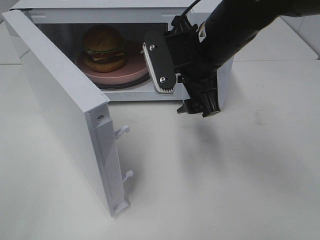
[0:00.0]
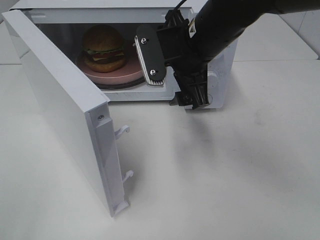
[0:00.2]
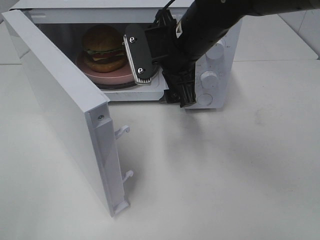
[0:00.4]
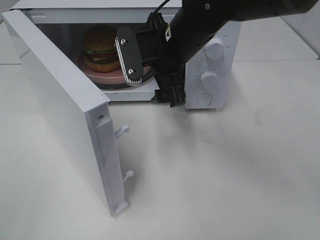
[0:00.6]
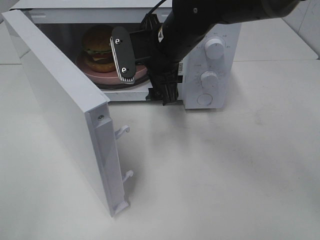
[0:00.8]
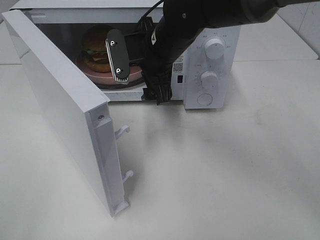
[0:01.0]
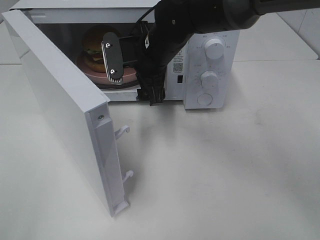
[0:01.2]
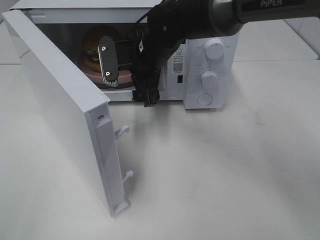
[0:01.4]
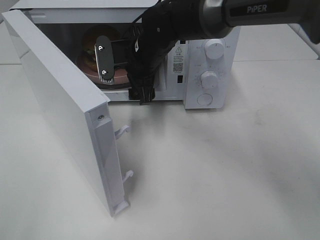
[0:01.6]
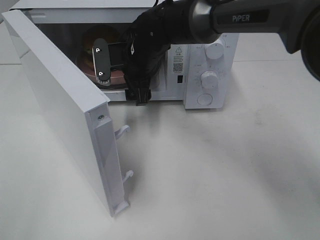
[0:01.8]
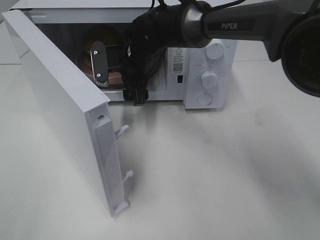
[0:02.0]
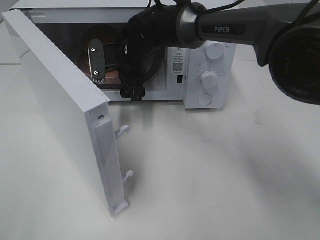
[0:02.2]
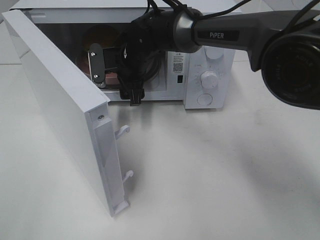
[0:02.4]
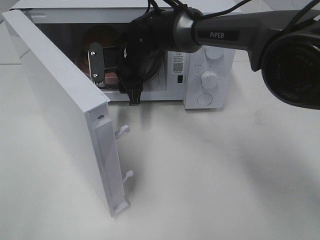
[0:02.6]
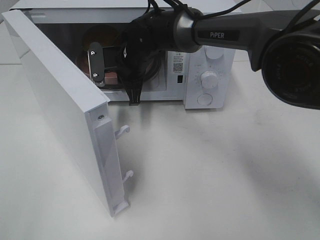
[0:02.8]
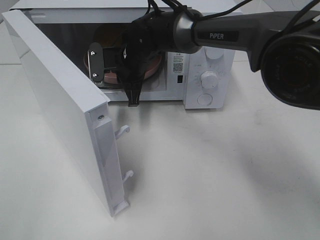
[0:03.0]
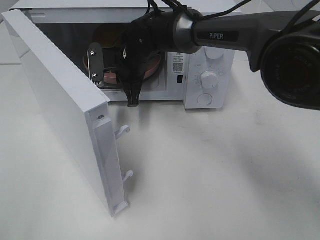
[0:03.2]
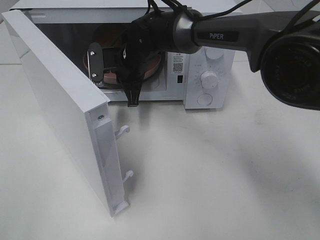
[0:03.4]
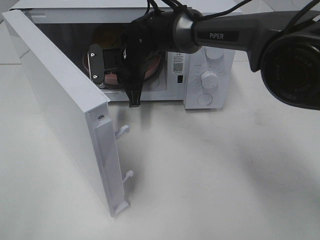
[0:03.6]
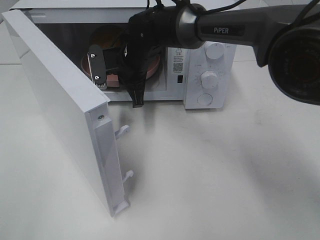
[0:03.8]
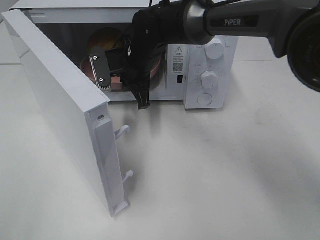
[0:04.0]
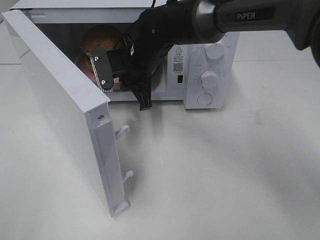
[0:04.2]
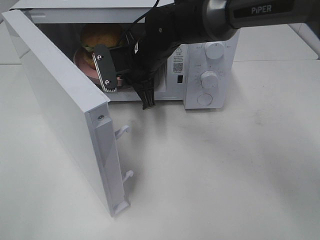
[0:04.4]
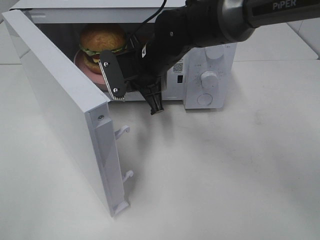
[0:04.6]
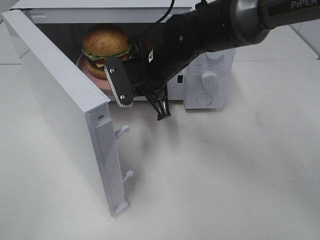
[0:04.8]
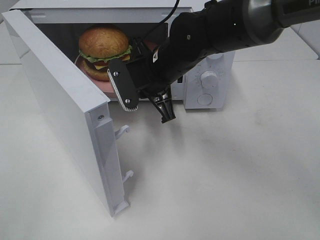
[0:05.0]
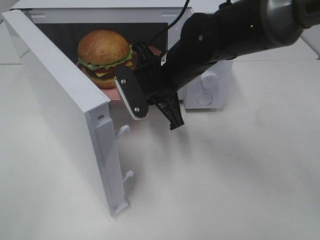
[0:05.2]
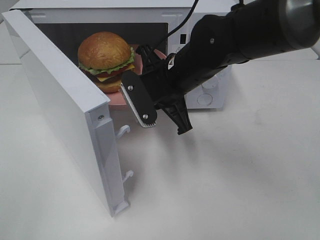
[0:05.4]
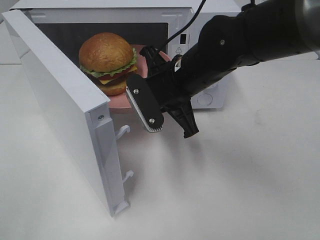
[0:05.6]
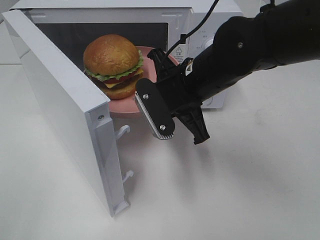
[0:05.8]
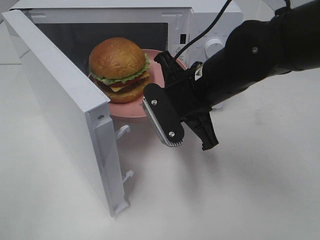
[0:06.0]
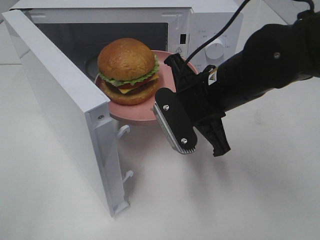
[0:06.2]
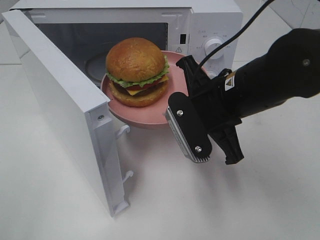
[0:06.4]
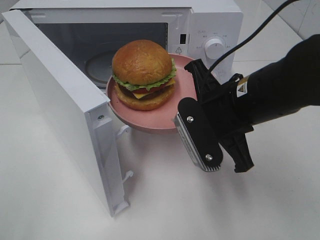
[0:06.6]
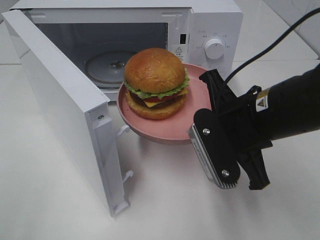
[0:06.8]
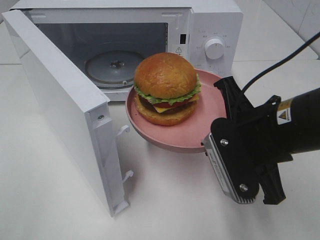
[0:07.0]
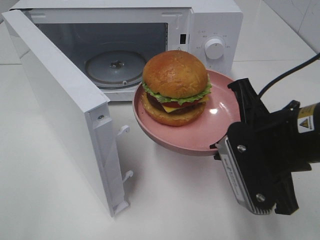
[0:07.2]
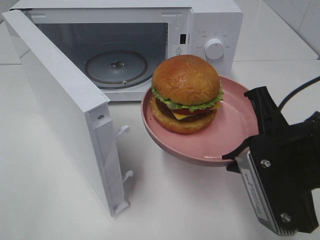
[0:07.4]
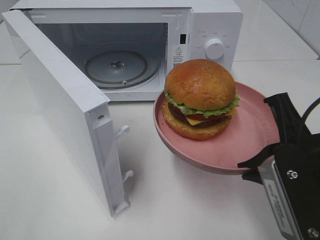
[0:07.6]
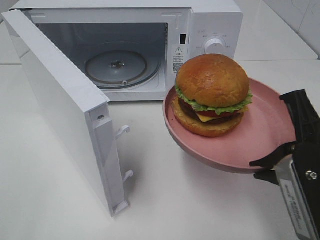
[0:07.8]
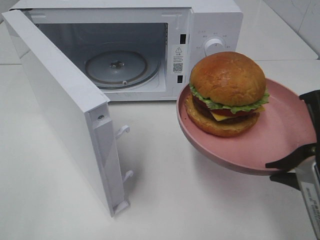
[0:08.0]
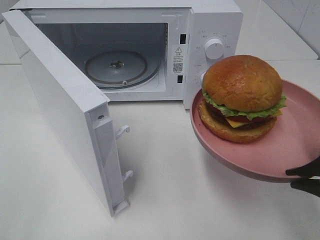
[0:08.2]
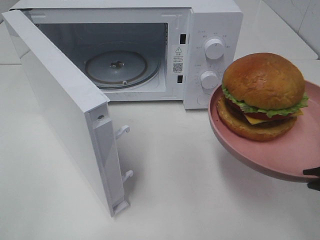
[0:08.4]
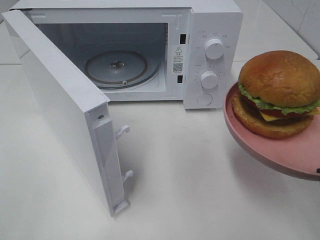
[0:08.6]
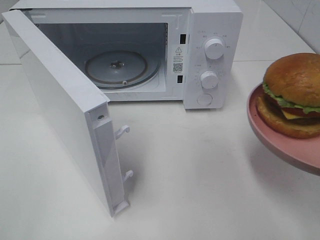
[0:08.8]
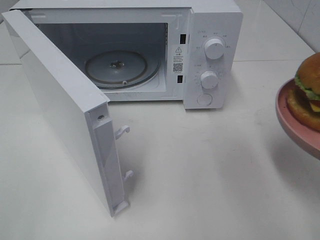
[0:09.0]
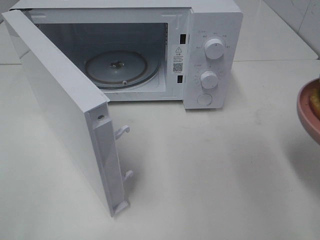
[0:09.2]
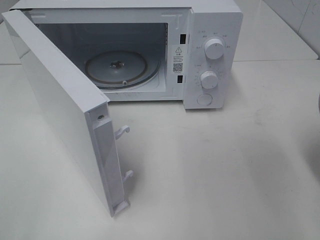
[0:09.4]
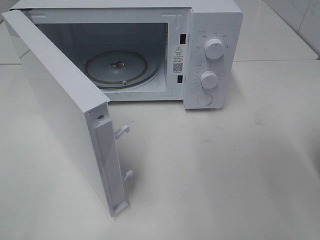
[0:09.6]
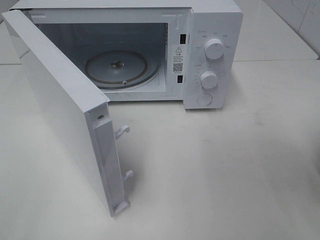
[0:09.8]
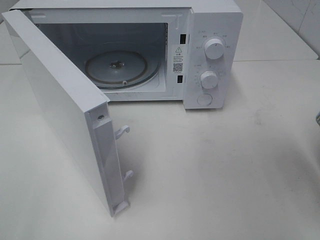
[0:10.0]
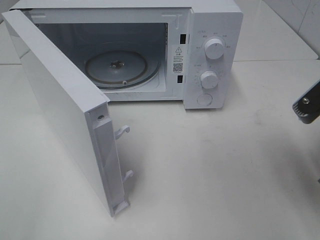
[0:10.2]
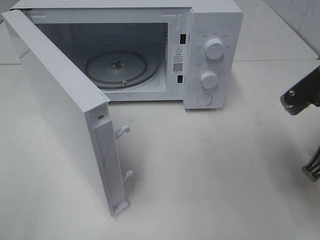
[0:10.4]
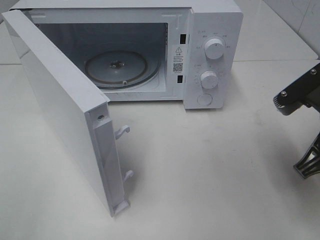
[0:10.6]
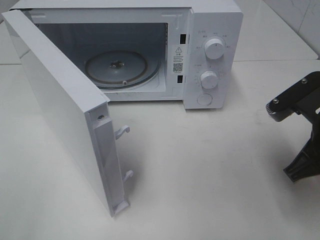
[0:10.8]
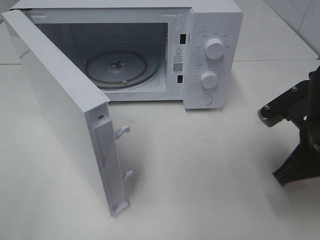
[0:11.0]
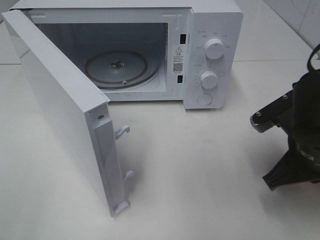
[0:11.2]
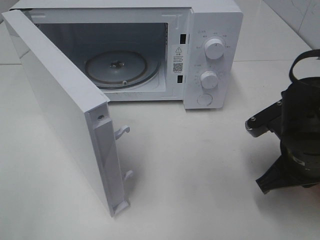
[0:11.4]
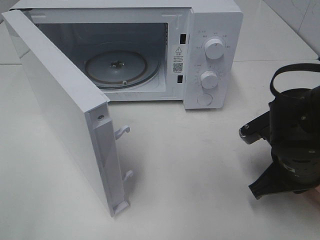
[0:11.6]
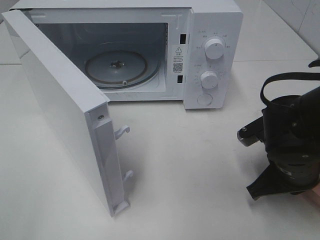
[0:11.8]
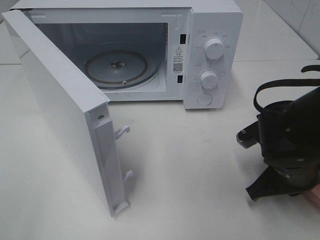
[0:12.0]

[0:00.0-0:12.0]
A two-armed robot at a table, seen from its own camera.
Task of the whole recording: Heat the burger.
Step, 0:00.0 to 0:03.4: Right hand: grab the plate with the hamburger.
0:00.0 to 0:01.6: The right gripper moves forward, to the left and downward, approximately 15 cm.
0:01.6 to 0:03.0: The right gripper shifts by approximately 5 cm, and closes its fingers.
0:03.0 to 0:04.4: The right gripper shifts by about 5 cm.
0:04.4 to 0:06.0: The right gripper travels backward and to the right by approximately 15 cm.
0:06.0 to 0:07.6: The right gripper is displaced backward and to the right by about 20 cm.
0:07.6 to 0:09.0: The right gripper goes approximately 10 cm to the right.
0:09.0 to 0:10.4: The right gripper goes approximately 10 cm forward.
0:10.4 to 0:12.0: The right gripper shifts roughly 10 cm downward.

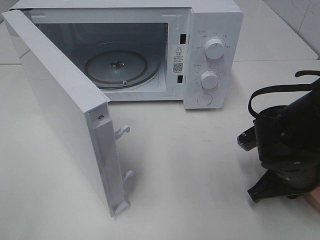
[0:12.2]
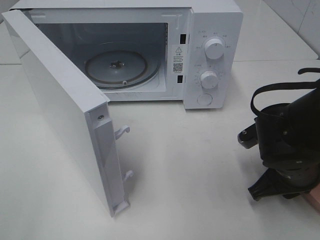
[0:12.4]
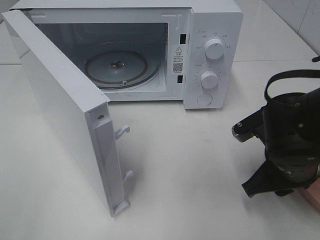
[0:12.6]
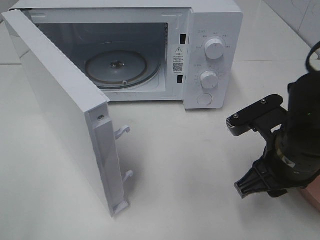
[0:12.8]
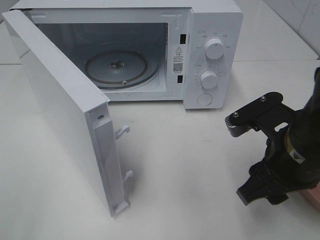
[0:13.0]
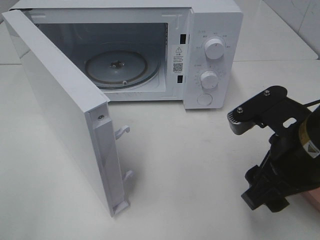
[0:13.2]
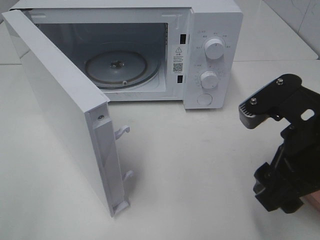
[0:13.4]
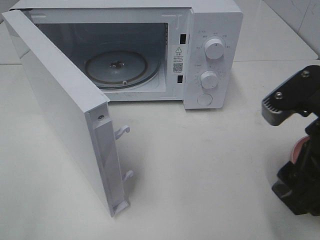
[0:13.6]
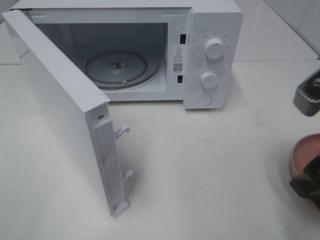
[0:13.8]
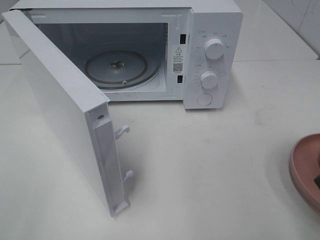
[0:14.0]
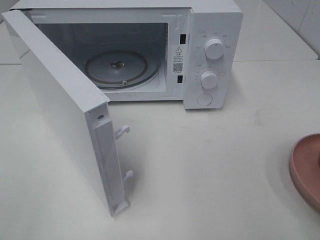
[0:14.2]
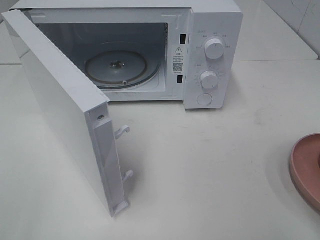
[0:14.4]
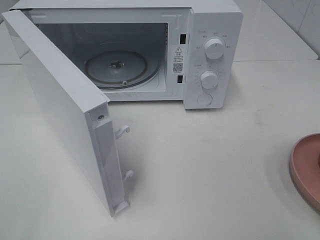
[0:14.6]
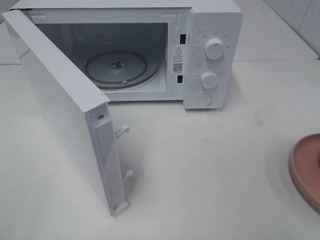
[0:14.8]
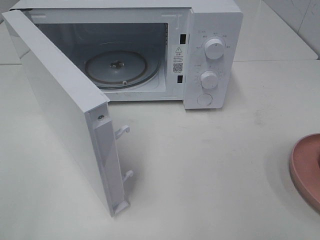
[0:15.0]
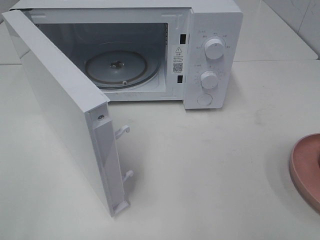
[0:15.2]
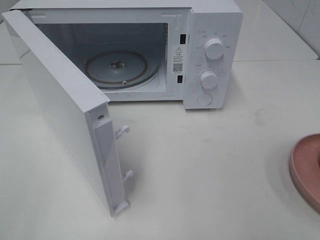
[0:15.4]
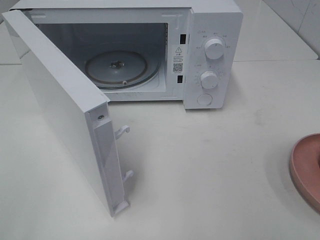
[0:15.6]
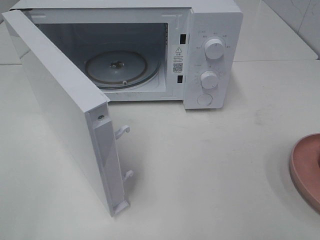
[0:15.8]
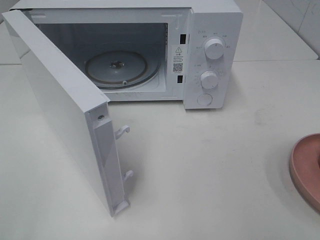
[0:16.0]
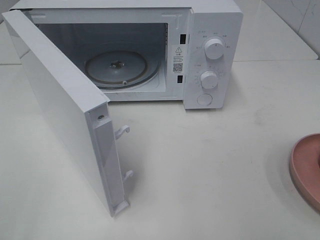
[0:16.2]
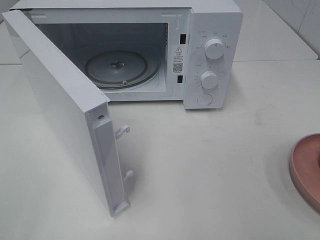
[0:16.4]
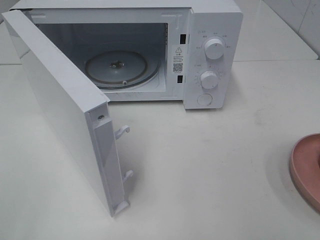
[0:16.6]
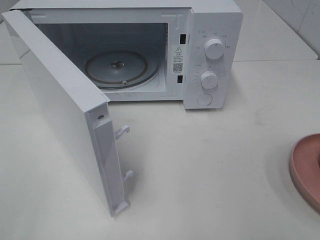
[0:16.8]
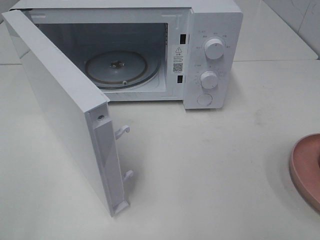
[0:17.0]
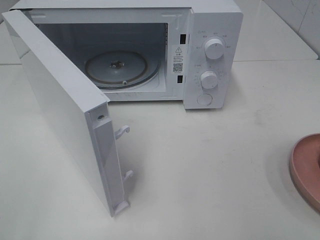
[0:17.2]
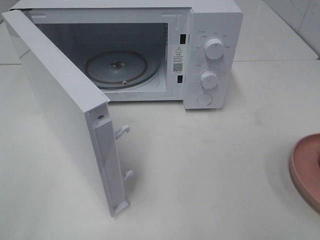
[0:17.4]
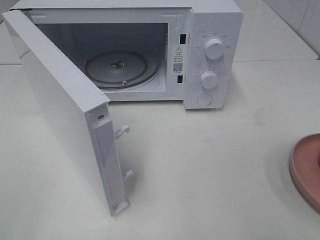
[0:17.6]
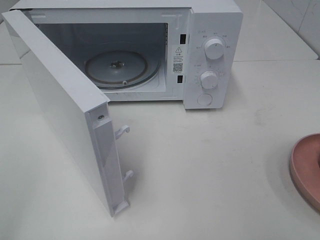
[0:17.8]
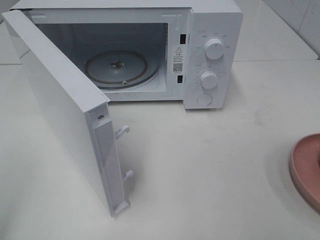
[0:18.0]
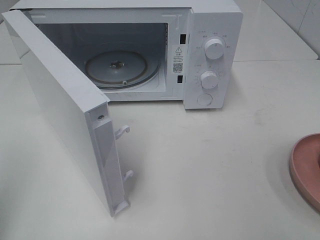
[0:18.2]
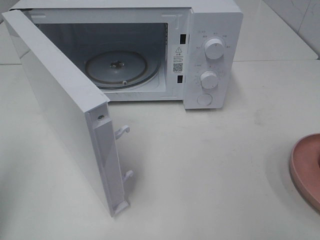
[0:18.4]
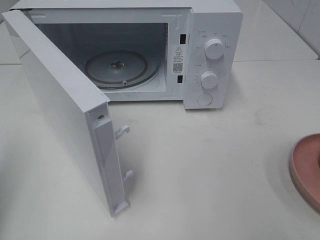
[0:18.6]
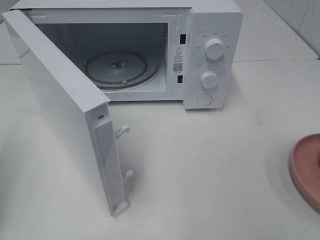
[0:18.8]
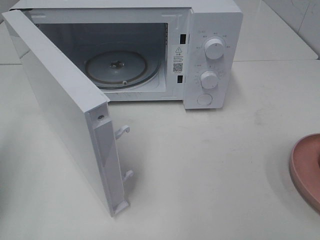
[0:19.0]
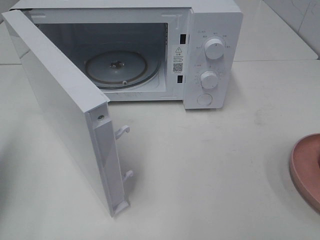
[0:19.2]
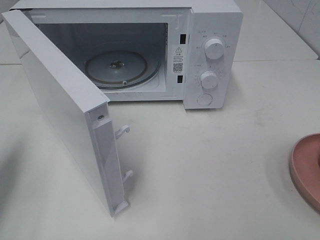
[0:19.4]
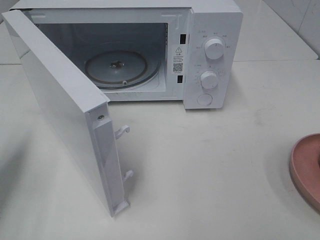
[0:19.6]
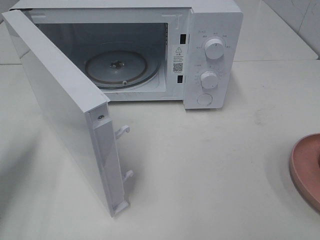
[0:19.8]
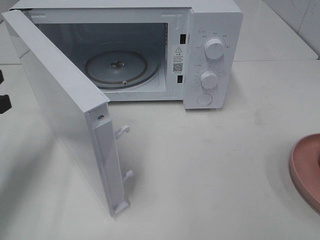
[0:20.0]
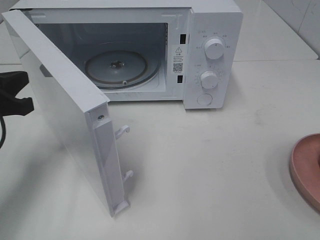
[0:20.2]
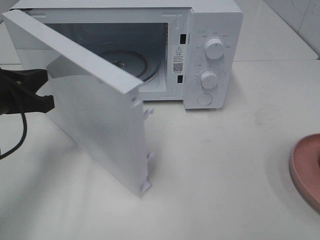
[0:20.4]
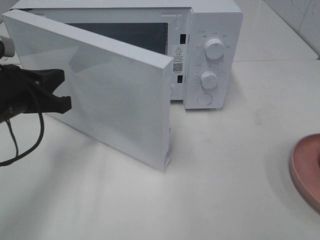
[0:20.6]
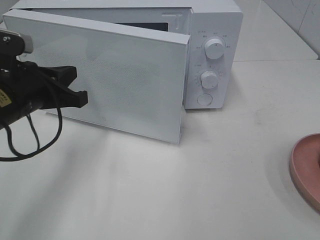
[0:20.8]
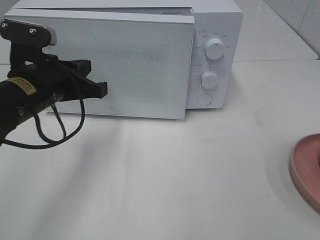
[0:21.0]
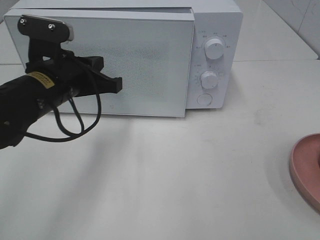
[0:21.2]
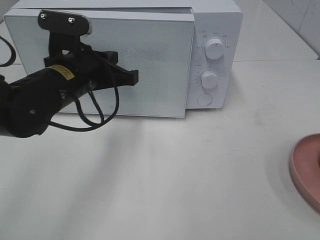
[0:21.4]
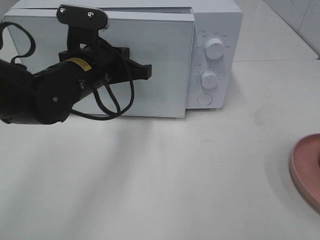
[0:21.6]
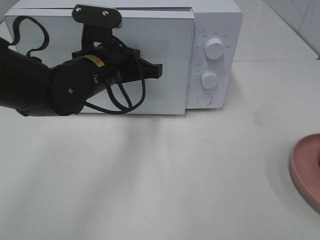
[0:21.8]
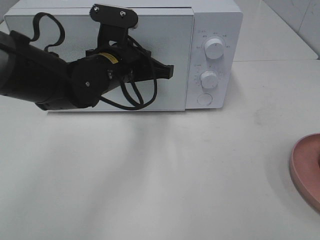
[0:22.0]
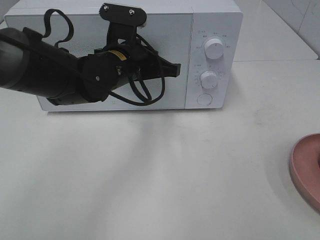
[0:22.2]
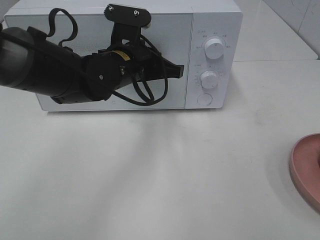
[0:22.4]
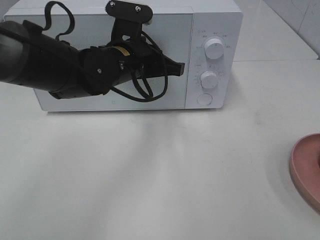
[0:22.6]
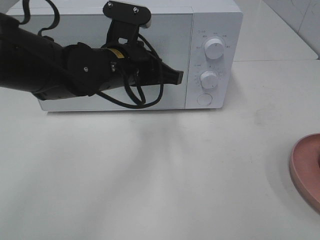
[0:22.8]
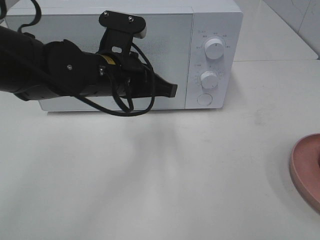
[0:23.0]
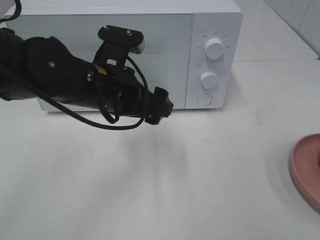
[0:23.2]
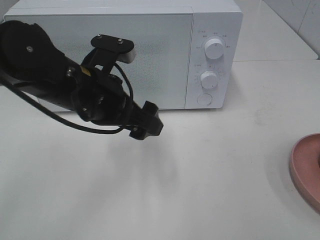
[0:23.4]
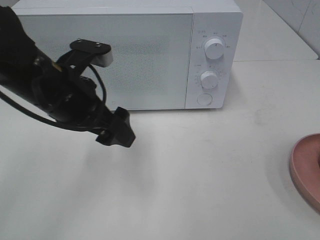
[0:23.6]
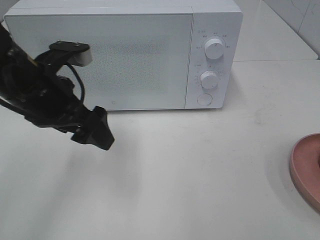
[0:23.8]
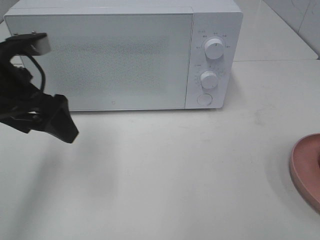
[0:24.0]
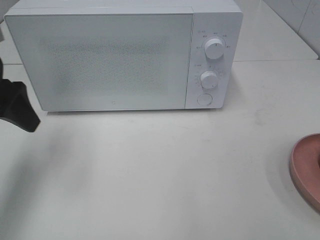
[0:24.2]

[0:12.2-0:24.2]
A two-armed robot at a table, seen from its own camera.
Task of the whole recording: Heat the burger.
Step, 0:12.8 to 0:23.2: Left hand: close the microwave door.
0:12.2 to 0:13.8: The right gripper shifts approximately 20 cm upward and backward, and opens up.
0:13.8 to 0:15.2: The right gripper shifts about 15 cm backward and to the right.
0:15.2 to 0:16.6: Both grippers stay about where they are.
0:18.2 to 0:19.8: The left gripper moves forward and downward, approximately 20 cm.
0:19.8 to 0:21.2: The left gripper goes about 15 cm to the right.
0:21.2 to 0:22.6: The left gripper goes approximately 10 cm to the right and forward.
0:22.6 to 0:24.2: The left gripper heads to the left, covering about 20 cm, and opens up.
